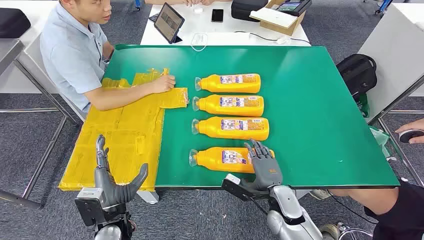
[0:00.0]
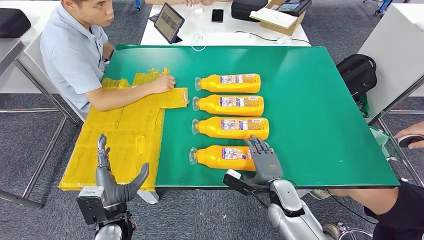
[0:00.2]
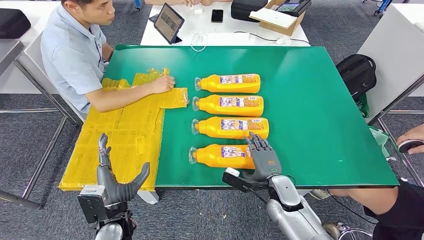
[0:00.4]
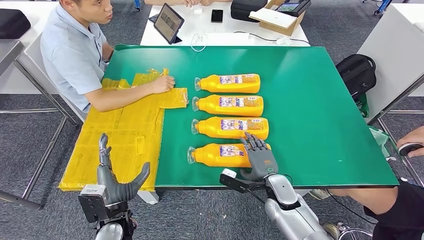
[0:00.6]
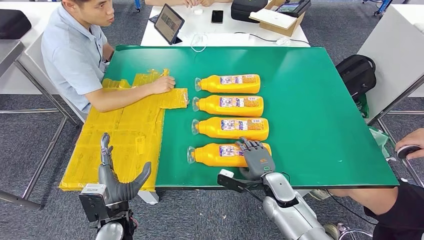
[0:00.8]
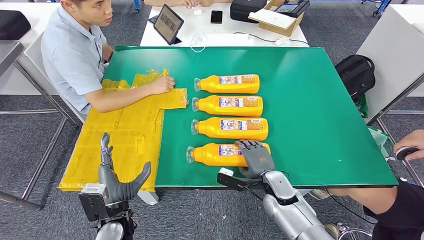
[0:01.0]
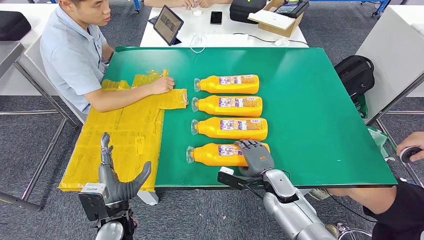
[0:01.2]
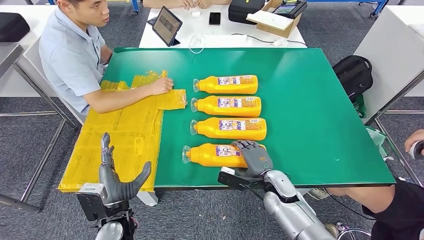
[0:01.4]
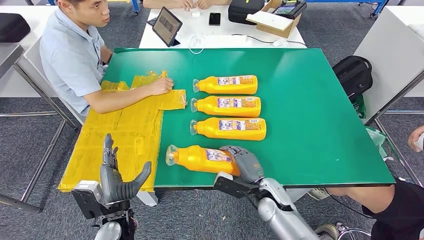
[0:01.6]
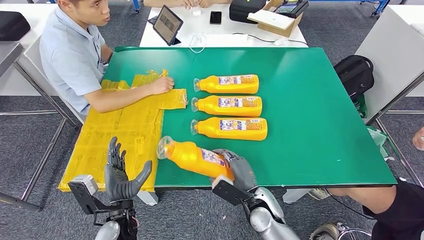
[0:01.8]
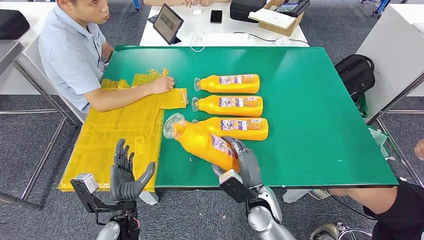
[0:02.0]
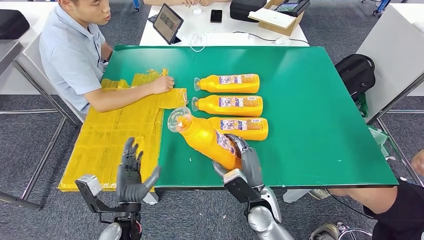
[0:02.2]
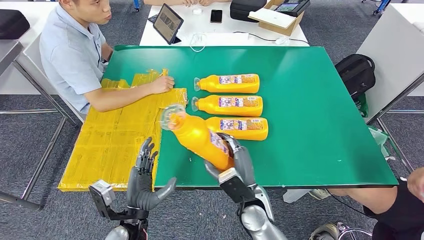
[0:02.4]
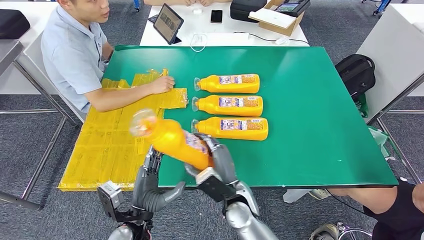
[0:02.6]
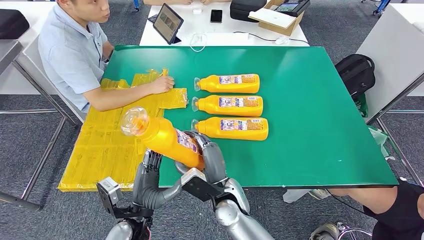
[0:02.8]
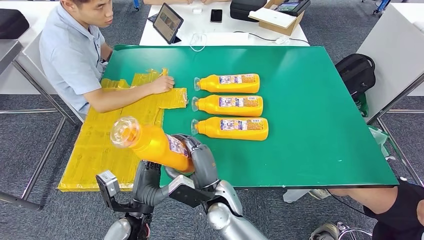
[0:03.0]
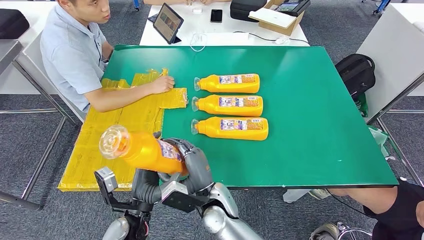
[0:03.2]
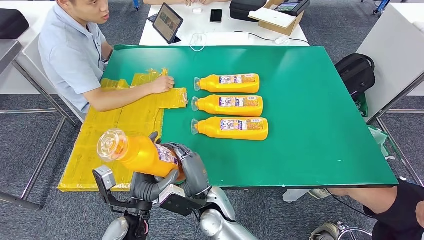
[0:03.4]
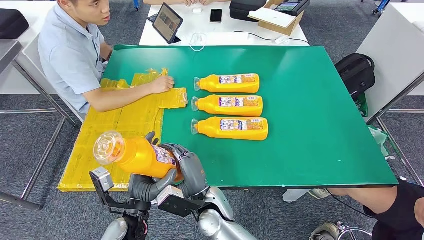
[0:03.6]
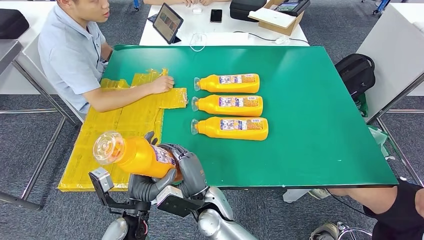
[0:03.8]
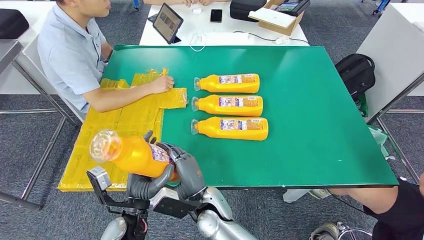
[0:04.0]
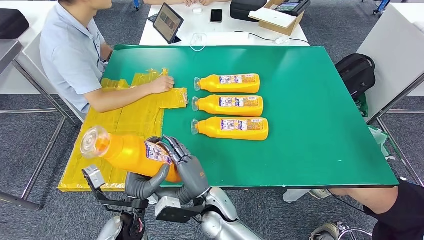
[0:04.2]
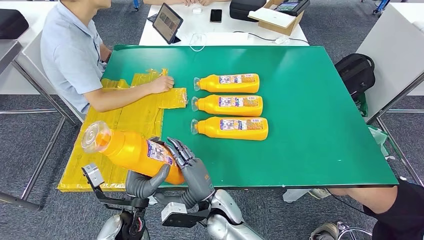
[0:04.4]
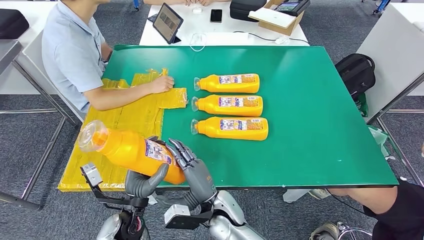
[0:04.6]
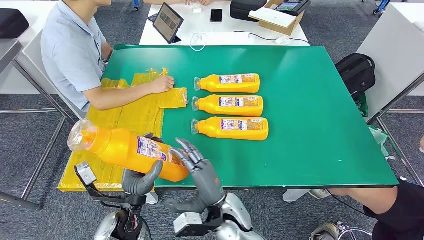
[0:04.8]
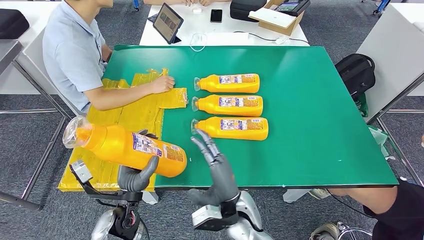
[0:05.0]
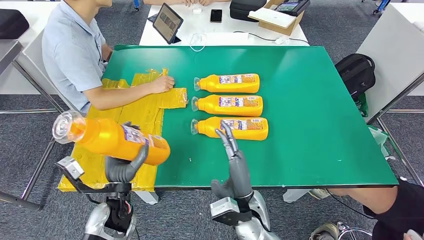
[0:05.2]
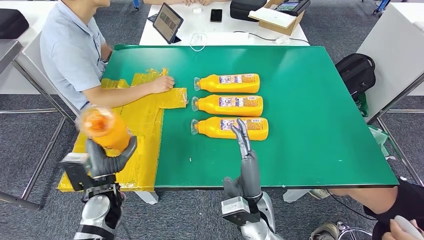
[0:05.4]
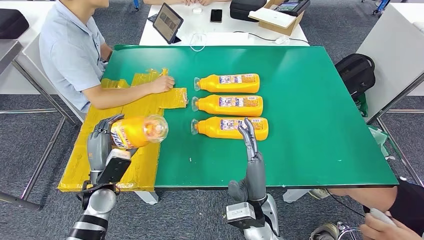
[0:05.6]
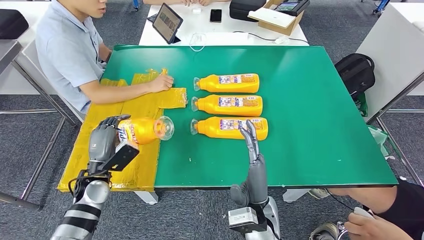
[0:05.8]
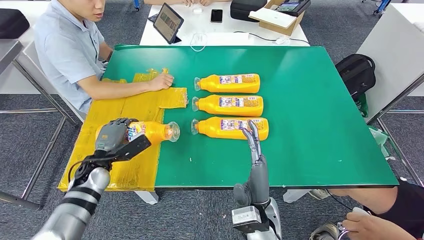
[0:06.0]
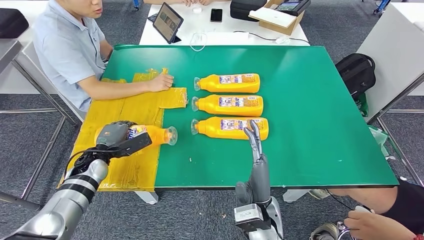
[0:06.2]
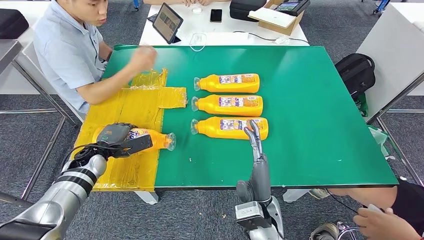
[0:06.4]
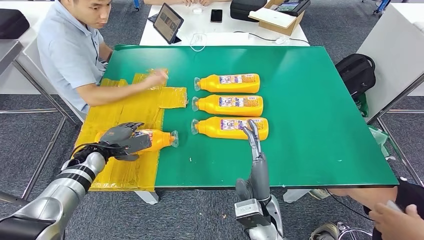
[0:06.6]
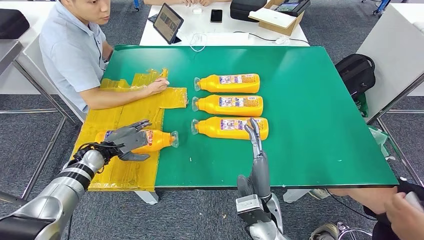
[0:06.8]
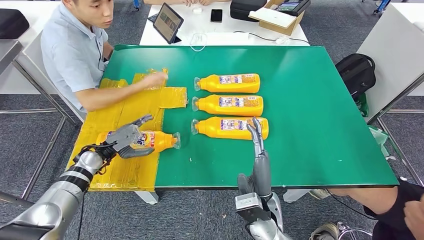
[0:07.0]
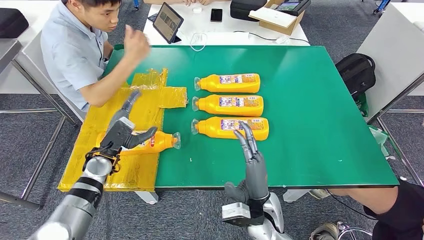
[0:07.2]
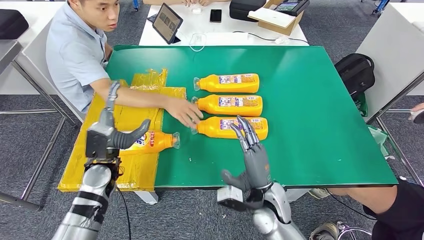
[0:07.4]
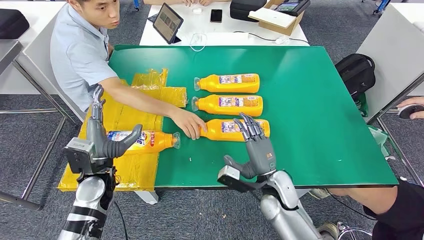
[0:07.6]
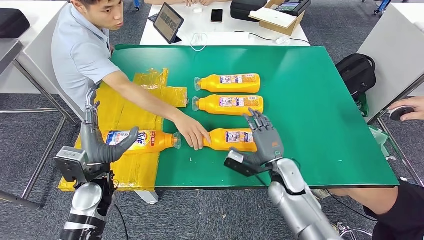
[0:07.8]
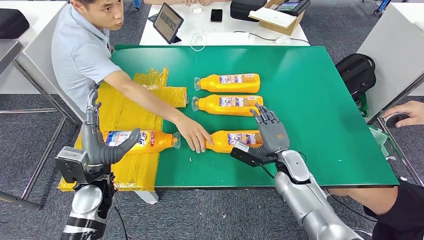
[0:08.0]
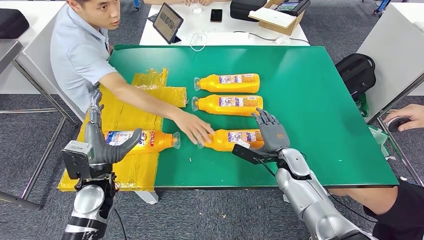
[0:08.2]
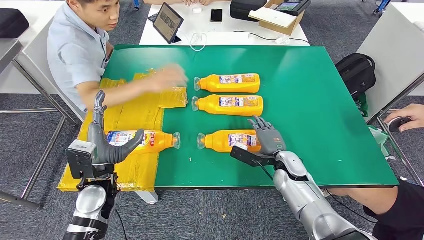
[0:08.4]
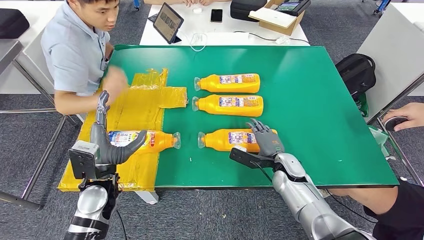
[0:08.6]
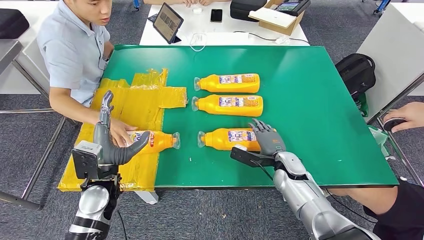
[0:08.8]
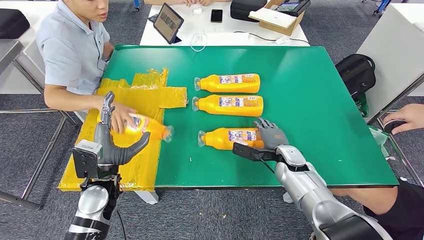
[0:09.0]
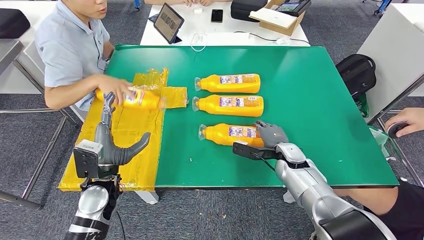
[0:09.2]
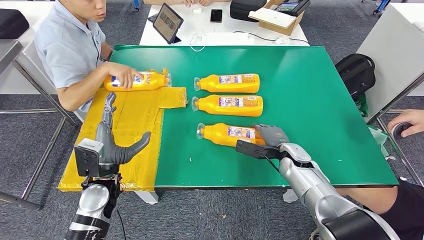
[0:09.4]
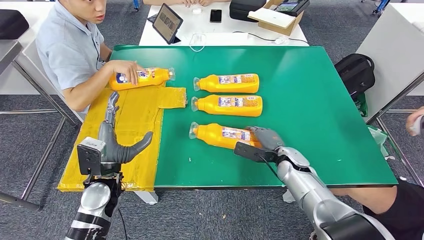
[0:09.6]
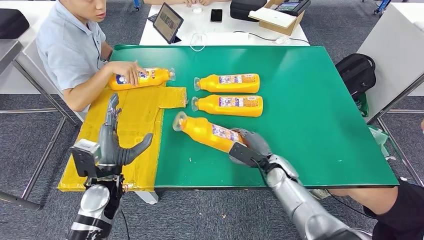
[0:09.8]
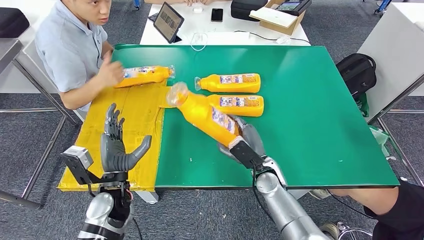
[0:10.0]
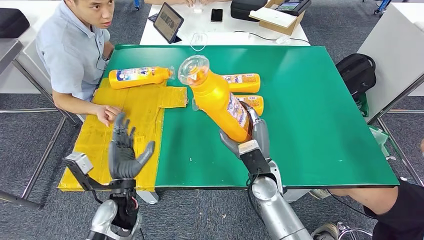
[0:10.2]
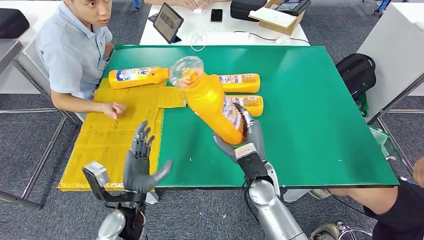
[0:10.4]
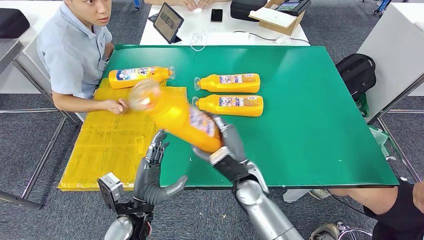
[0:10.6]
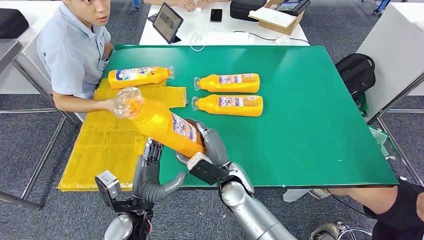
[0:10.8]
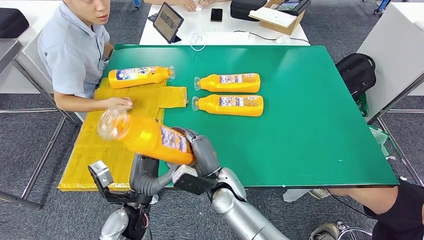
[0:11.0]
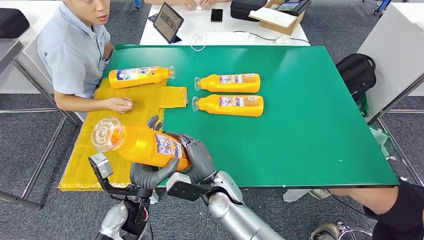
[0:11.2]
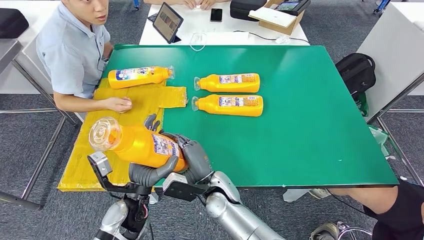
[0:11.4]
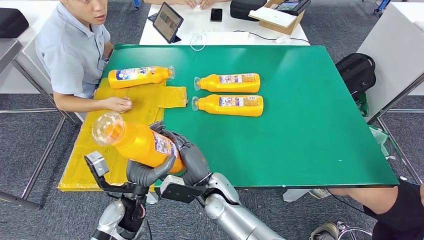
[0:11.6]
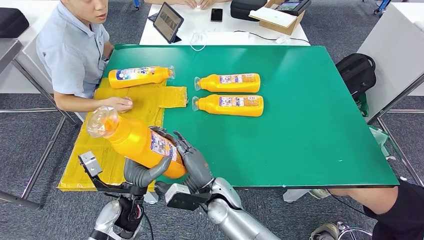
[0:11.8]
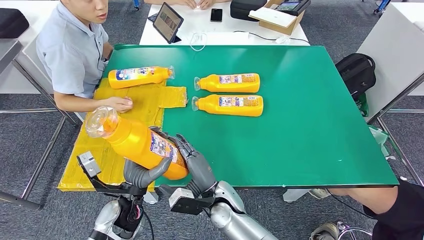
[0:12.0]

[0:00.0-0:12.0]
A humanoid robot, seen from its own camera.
Step, 0:00.0 to 0:02.6: Take the fast-moving consumer goods bottle from the table.
Step, 0:02.8 to 0:06.2: Flip the fast-moving consumer goods bottle to the front side.
Step, 0:08.6 to 0:11.8: Pick up the fast-moving consumer goods bottle from the table.
0:03.0 to 0:04.4: The hands move only a little.
0:04.4 to 0:06.0: The right hand is displaced to the right by roughly 10 cm, while the left hand travels forward and to the left by about 20 cm.
0:10.4 to 0:12.0: The right hand is displaced to the left and downward by about 10 cm.

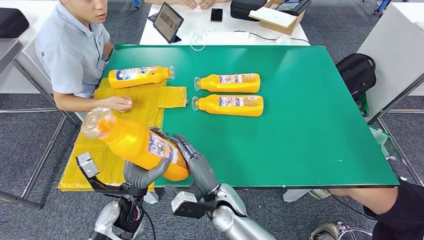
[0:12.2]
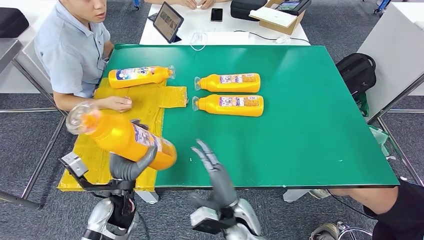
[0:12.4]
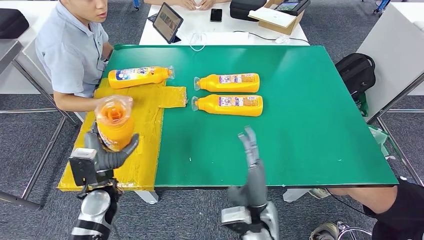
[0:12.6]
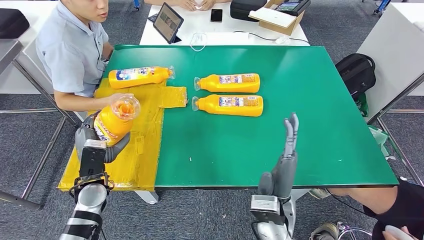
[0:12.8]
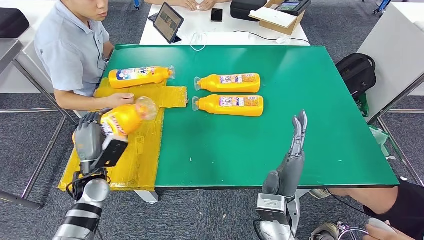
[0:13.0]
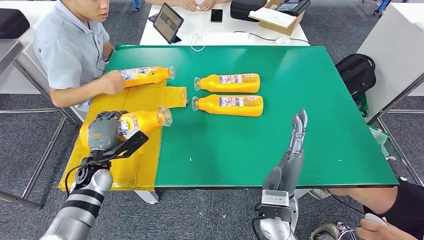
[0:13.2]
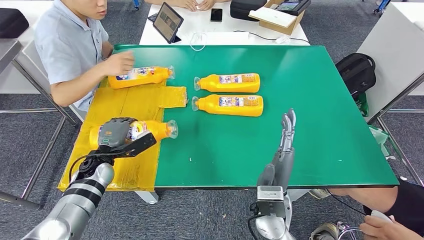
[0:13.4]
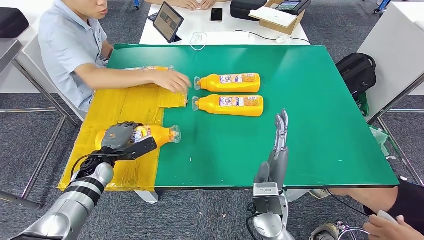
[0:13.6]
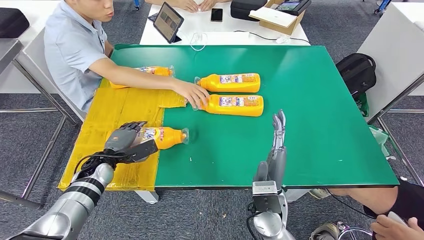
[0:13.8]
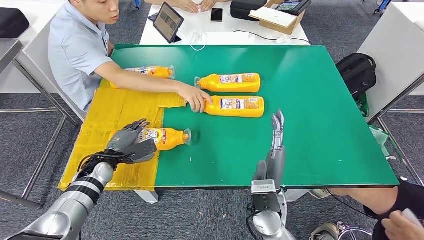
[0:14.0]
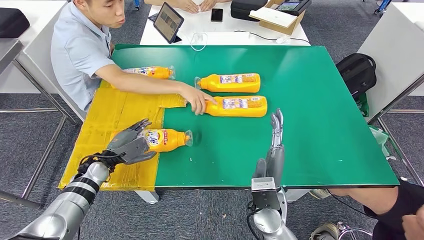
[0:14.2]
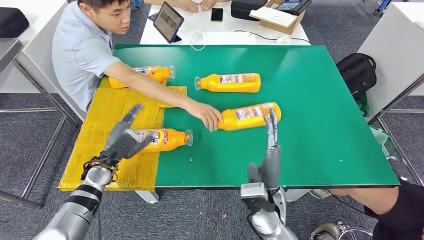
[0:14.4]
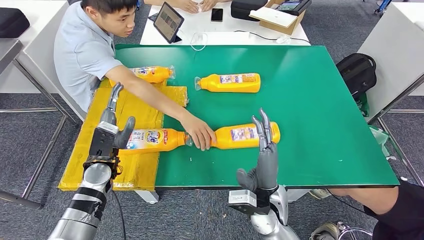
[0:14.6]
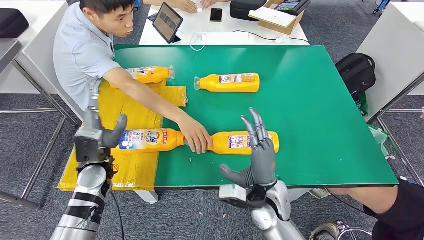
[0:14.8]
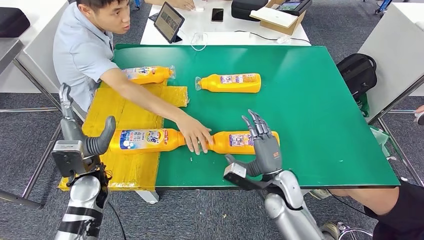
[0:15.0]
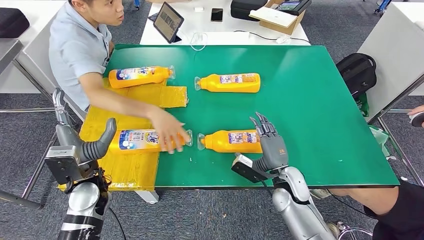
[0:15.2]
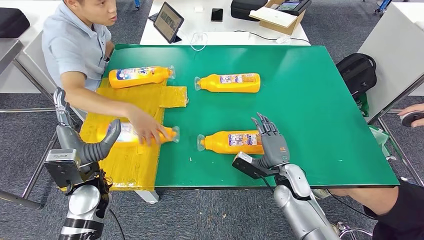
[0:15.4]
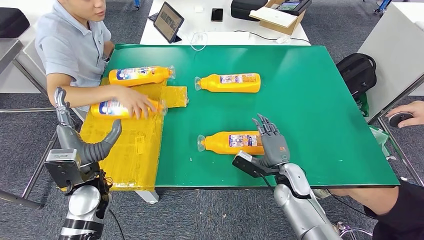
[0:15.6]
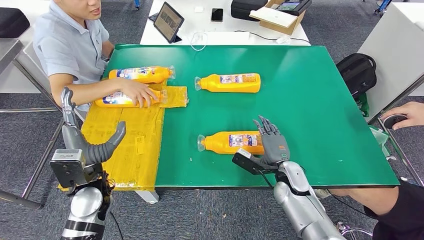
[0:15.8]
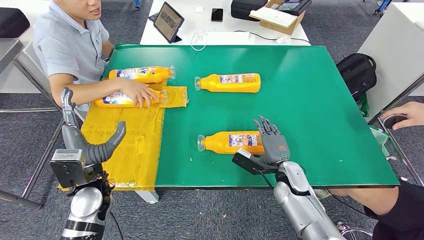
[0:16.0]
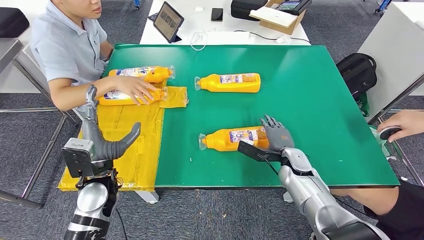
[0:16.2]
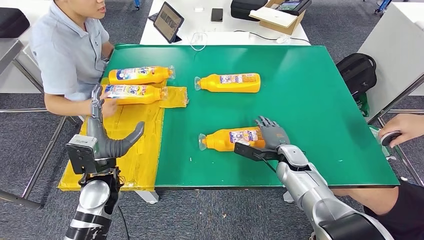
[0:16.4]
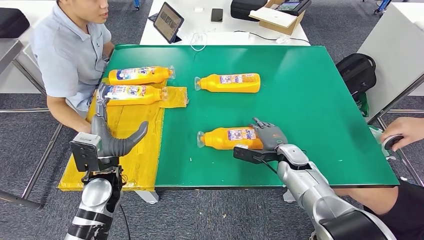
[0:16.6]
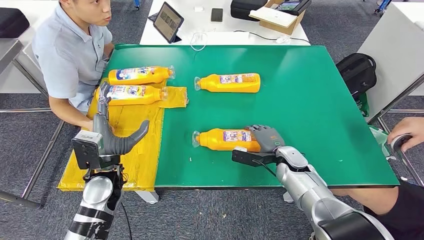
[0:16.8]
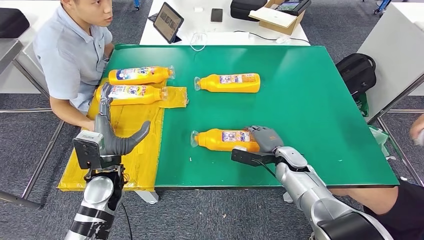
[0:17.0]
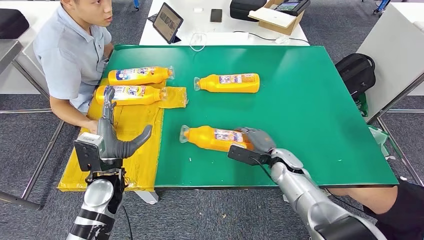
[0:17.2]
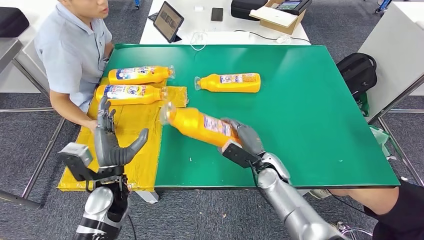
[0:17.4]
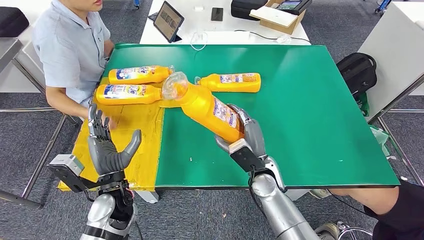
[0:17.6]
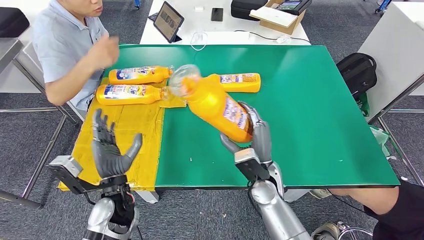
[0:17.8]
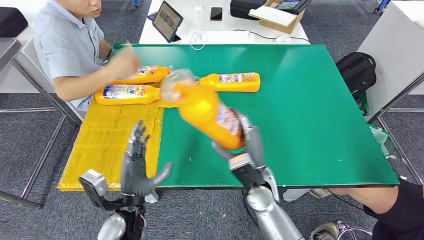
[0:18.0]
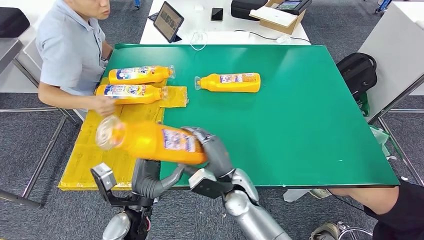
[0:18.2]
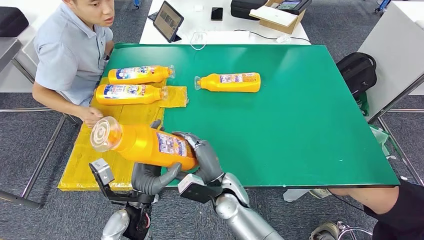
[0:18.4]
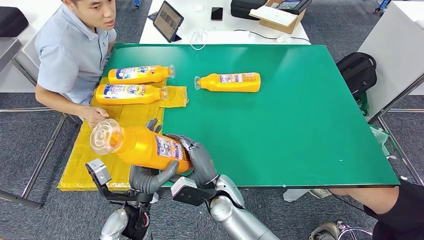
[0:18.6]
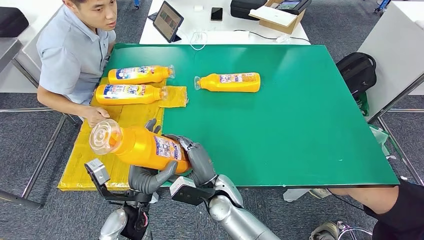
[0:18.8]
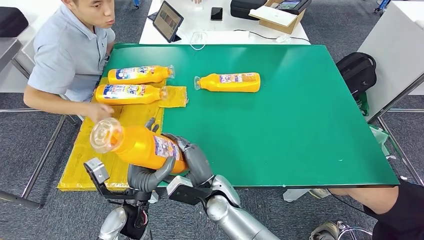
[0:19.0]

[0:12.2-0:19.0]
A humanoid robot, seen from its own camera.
Step, 0:12.2 to 0:16.2: Flip the fast-moving consumer goods bottle to the front side.
